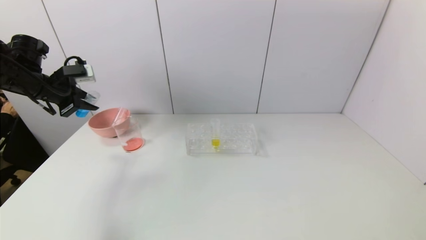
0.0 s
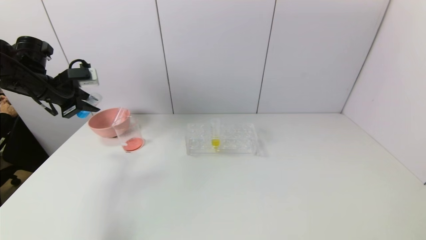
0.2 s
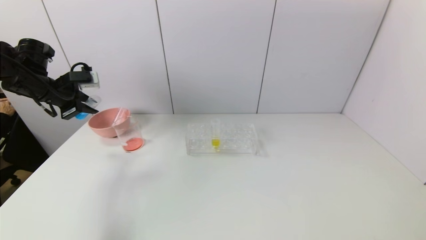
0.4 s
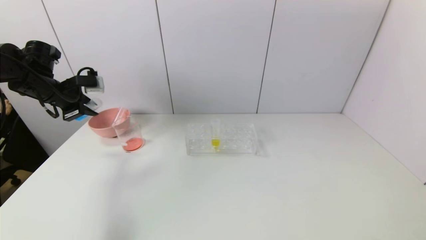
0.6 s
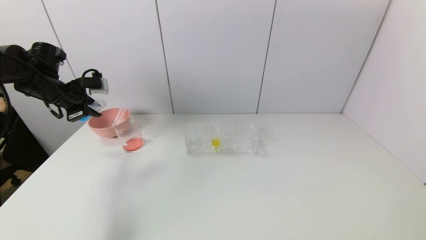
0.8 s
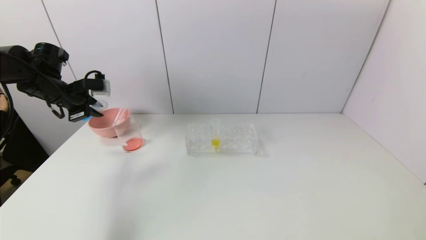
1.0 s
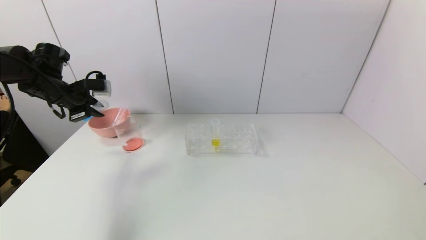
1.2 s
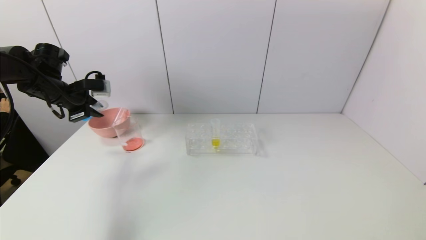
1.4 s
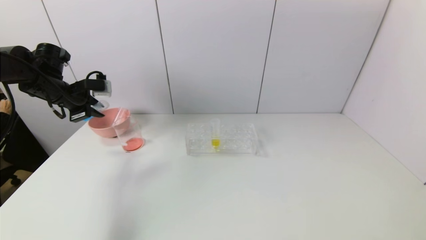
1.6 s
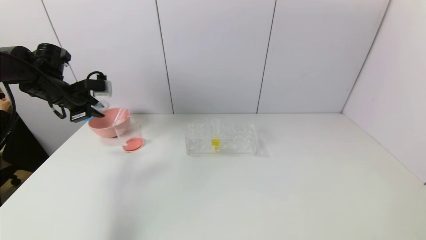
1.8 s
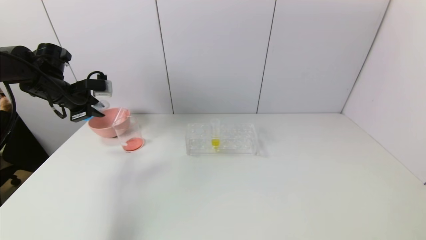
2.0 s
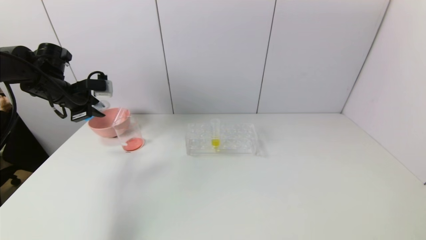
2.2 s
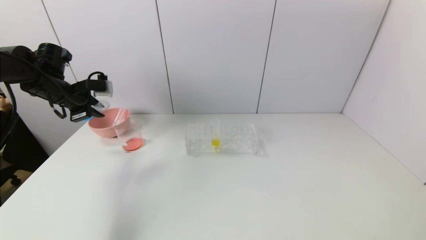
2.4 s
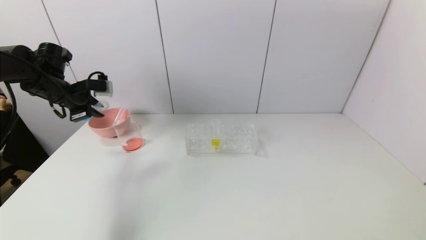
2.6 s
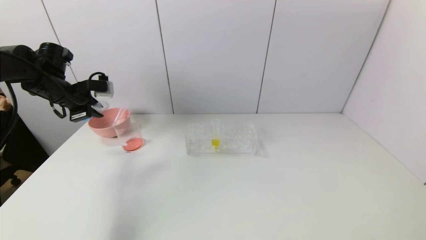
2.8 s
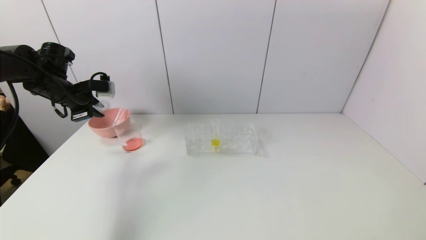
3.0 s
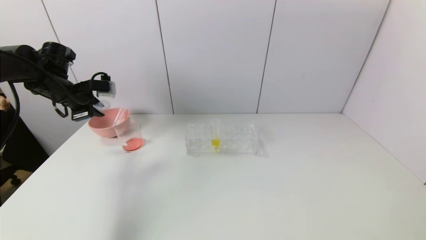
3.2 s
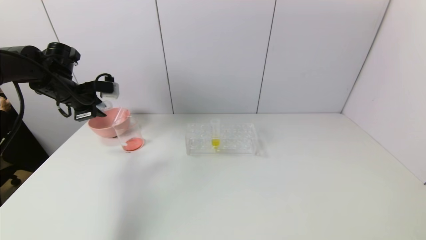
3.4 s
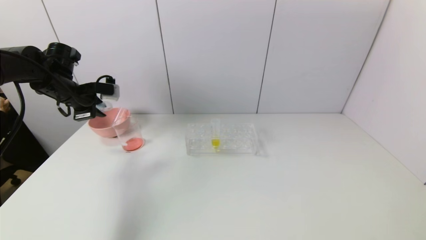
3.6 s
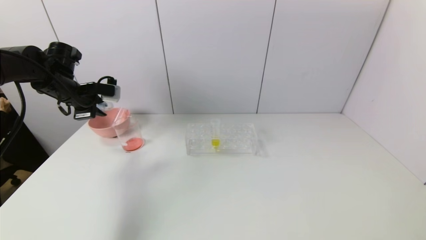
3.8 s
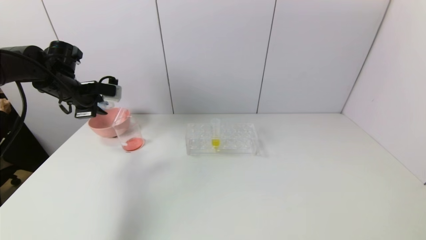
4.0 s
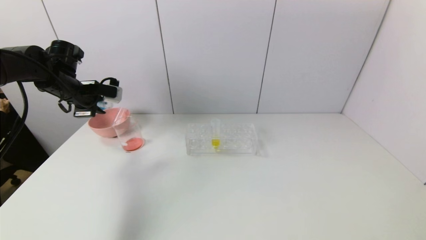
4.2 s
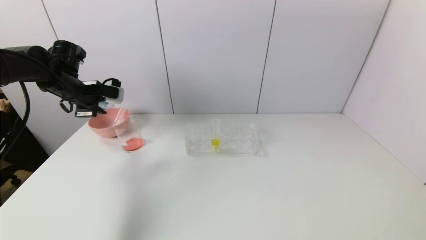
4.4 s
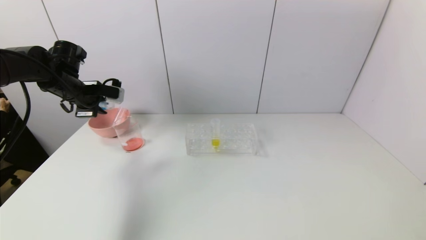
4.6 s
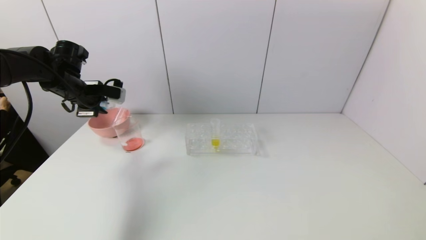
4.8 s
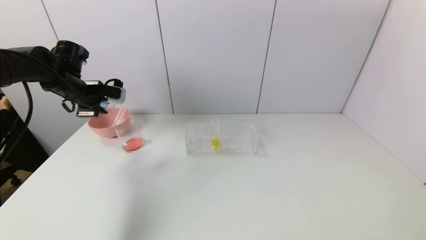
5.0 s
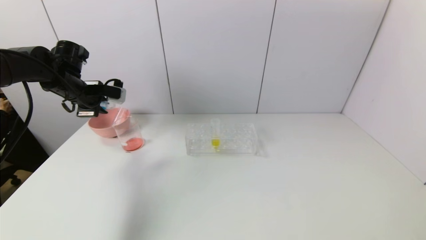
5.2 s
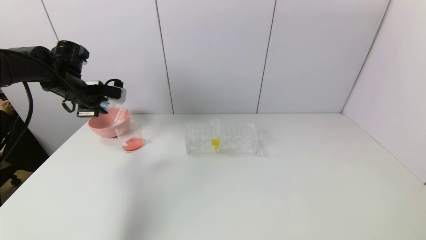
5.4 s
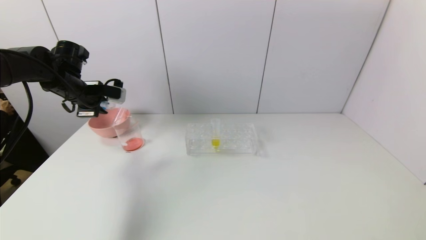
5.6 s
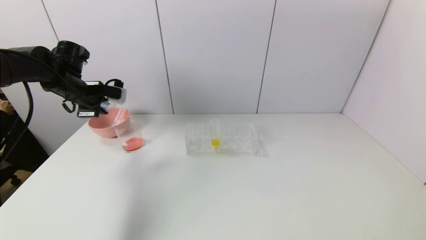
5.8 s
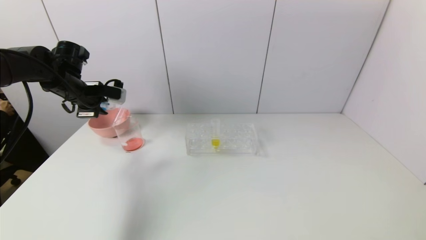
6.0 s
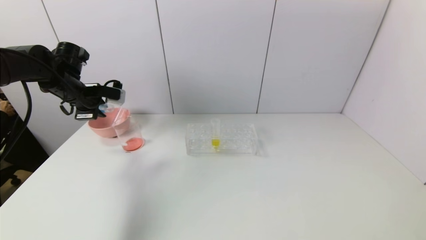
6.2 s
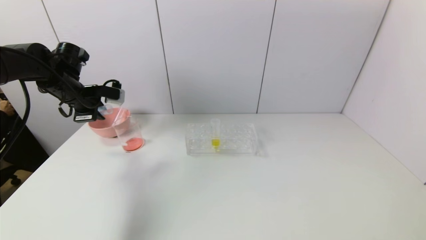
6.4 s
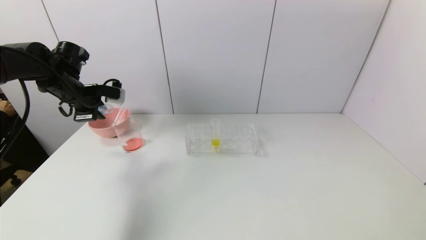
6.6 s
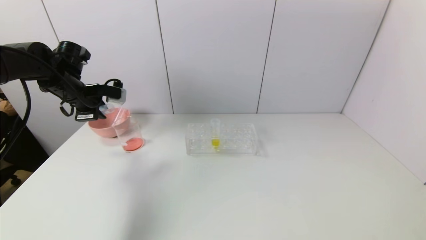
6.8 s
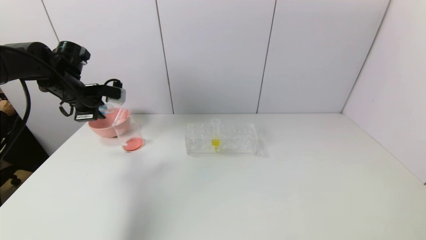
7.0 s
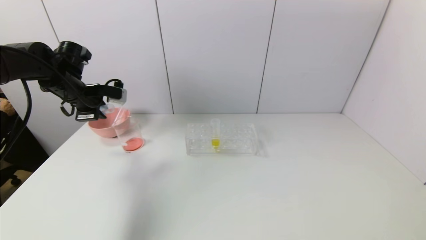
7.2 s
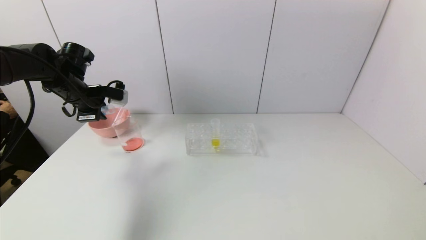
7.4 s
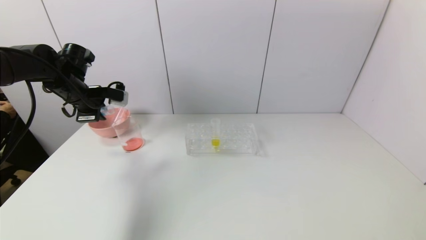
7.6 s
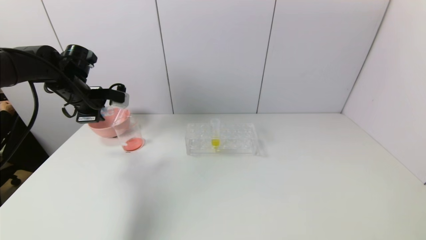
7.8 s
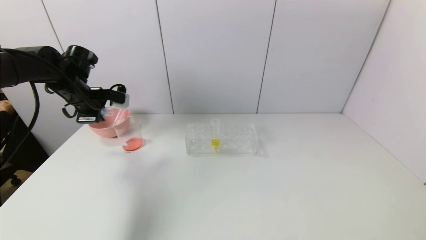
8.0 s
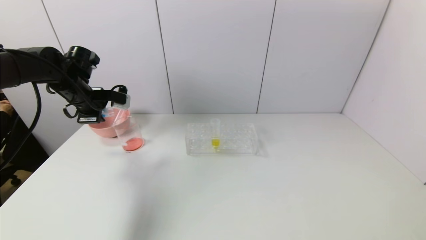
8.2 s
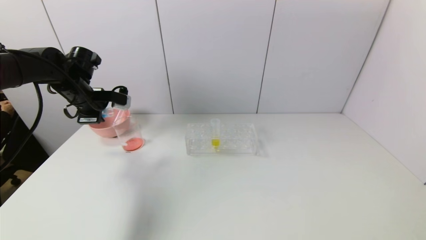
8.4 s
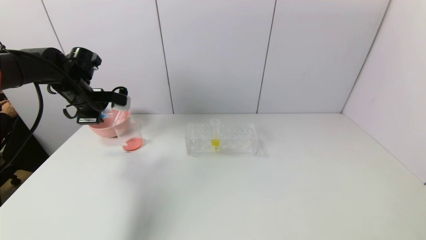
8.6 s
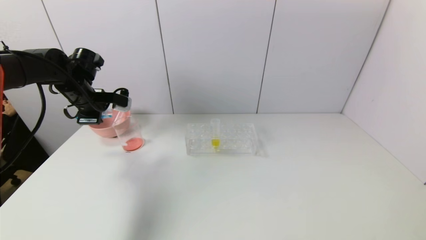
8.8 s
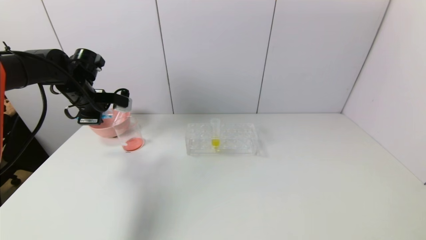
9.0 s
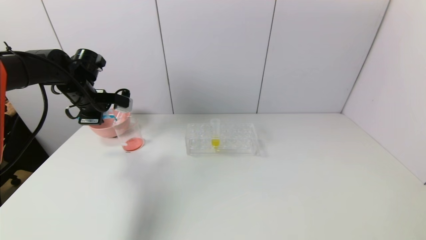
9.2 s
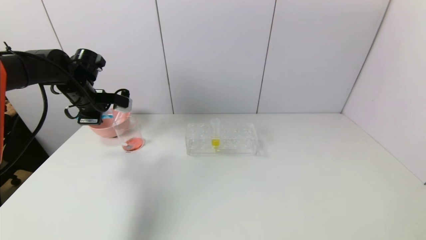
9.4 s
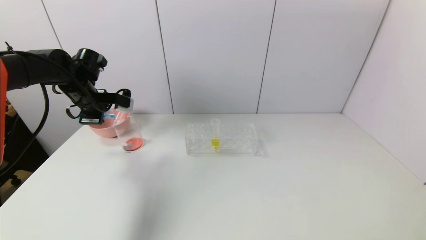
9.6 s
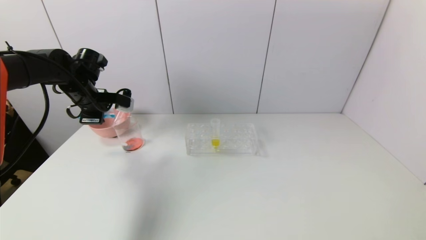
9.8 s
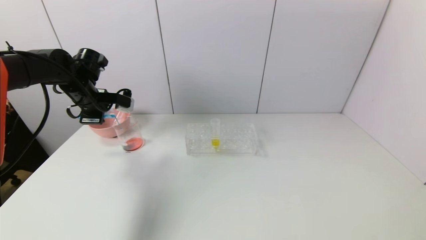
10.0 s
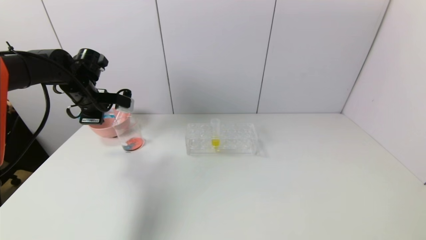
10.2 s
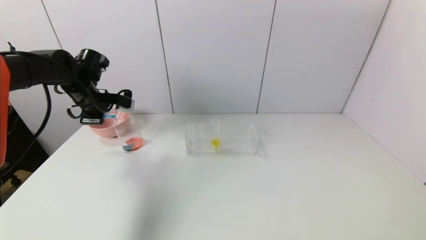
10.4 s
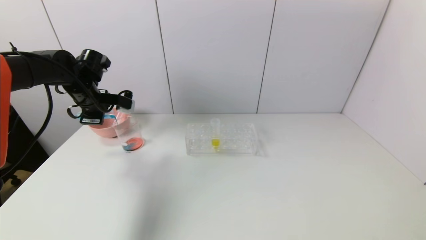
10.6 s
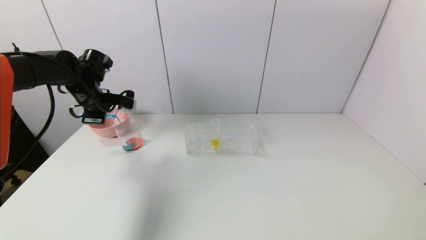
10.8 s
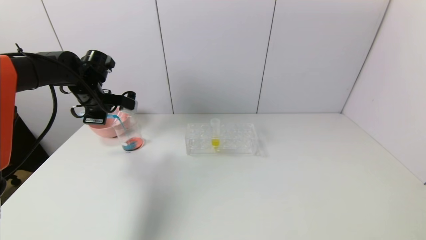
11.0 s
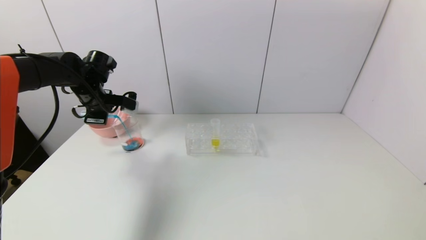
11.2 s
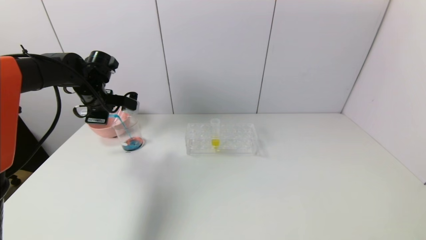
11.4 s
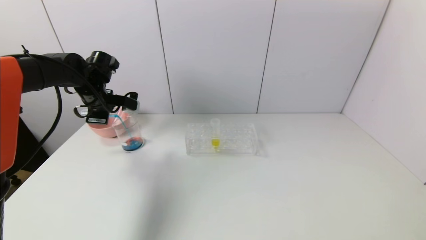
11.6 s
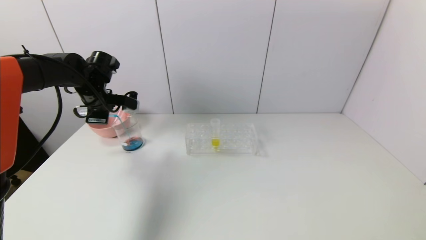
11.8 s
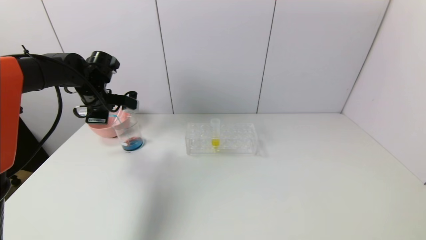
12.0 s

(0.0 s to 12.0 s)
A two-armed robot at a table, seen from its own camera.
Task of the whole recording: pick up the test tube with red pigment and the test tube with blue pigment by grippers and pour them into the container.
0.0 s - 1.6 s: The grippers move only a little.
1.6 s - 3.0 s: Neither gripper changes place.
3.0 s - 4.4 s: The grippers move only a little.
4.4 s - 6.0 s: The two grippers keep their place.
6.0 s - 9.0 s: There are only small adjustments of the grippers.
9.0 s - 10.4 s: The two grippers keep their place.
10.4 s - 12.0 s: The grippers move only a little.

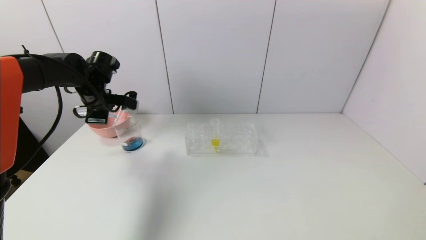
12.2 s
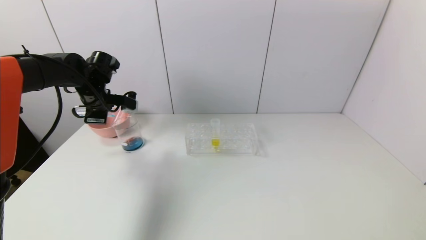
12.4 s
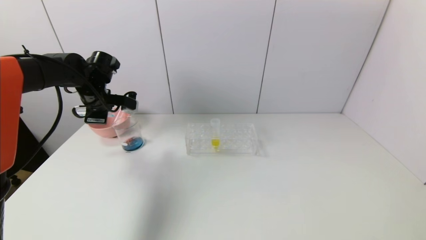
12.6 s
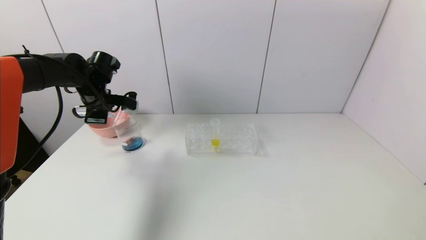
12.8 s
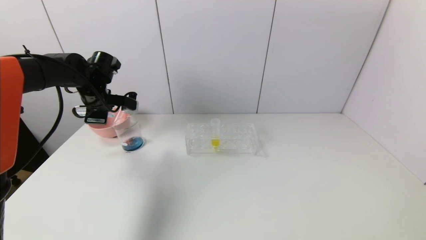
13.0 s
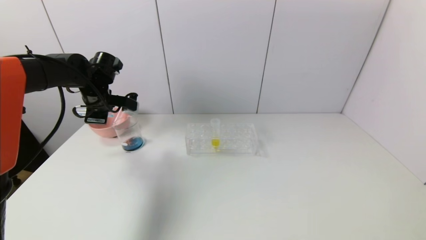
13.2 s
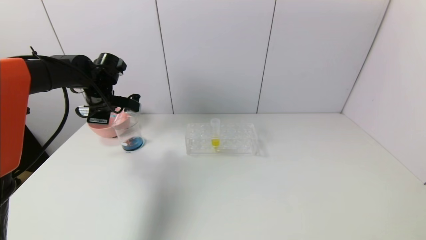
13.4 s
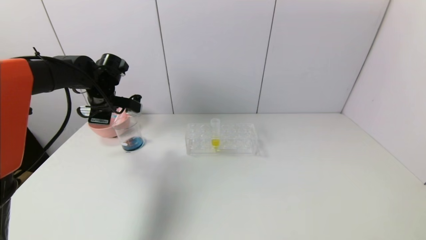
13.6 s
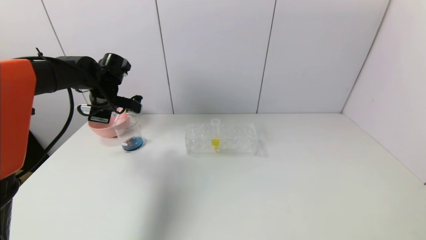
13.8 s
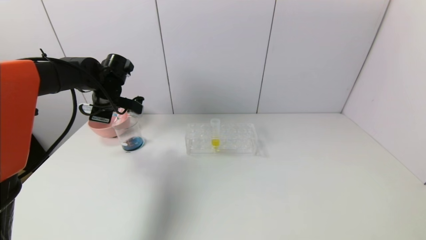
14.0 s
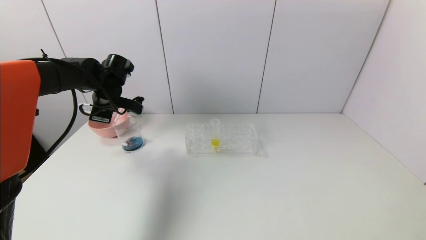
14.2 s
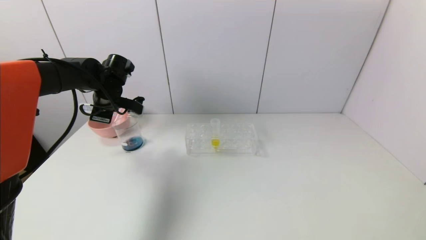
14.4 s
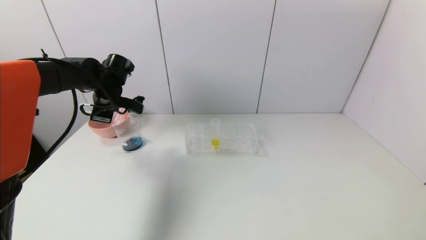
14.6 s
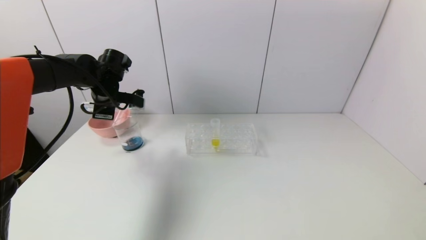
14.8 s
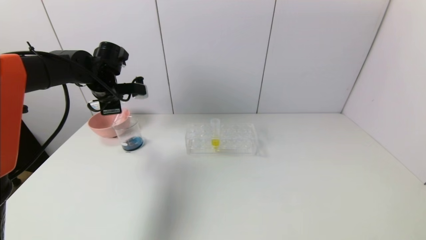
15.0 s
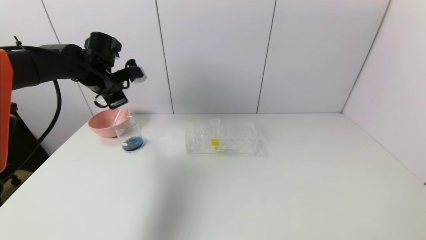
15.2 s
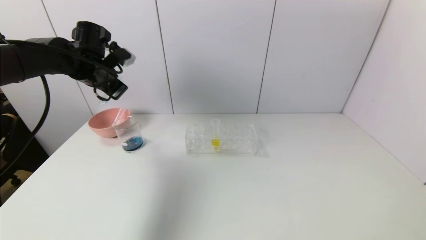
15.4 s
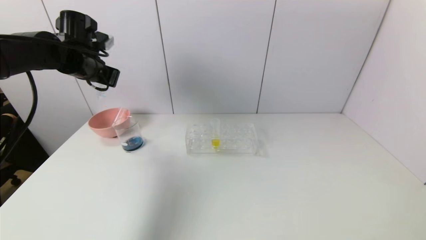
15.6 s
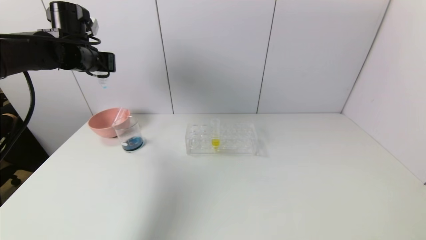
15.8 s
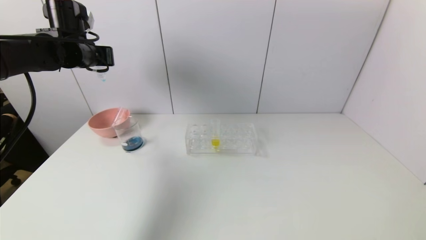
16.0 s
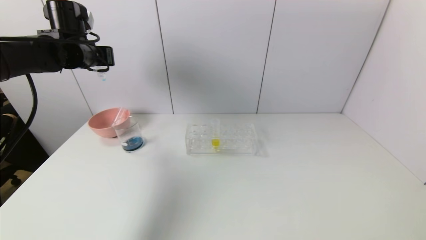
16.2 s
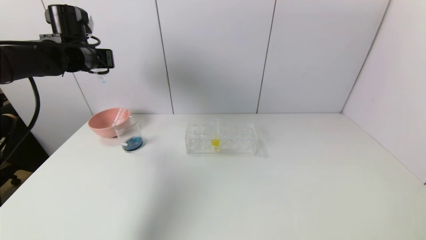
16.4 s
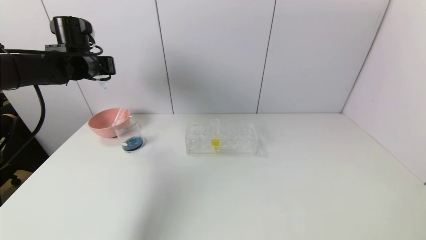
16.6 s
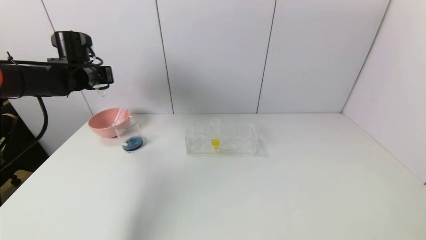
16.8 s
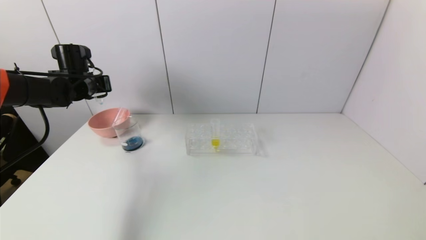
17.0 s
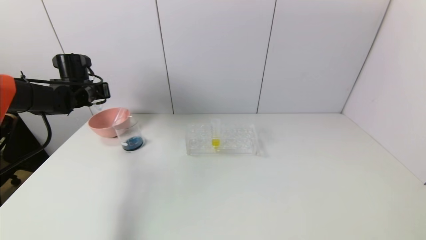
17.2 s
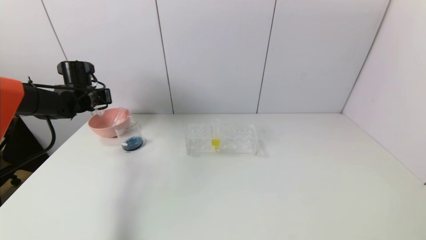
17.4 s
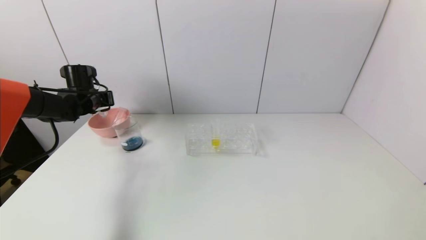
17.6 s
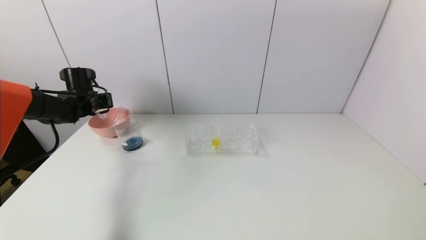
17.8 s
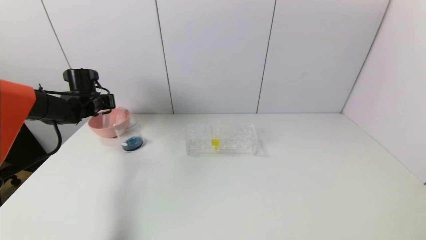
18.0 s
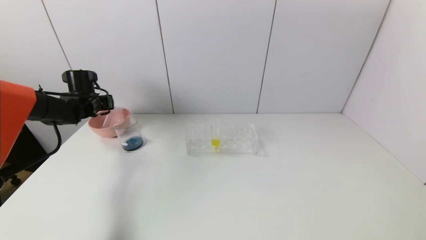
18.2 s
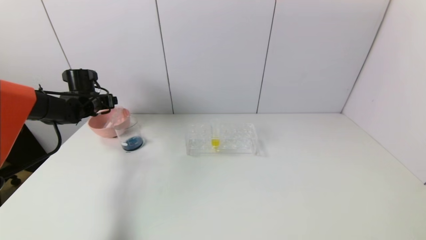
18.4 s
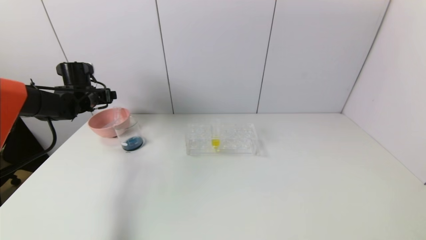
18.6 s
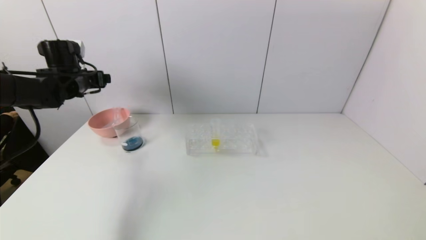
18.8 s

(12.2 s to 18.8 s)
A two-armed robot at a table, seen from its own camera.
Task of the whole recording: pick up the test tube with red pigment and the test tube with blue pigment by grippers and pour them into the container.
Step, 12.2 s - 14.2 s: Pour the blue reagent into the graduated cylinder with the left gripper.
Step, 14.4 s - 18.6 s: Place the test tube into the bowl with the left gripper.
12.2 s - 13.8 s: The grippers move only a little.
13.8 s - 15.4 s: The left gripper travels upward by approximately 5 cm.
15.4 s - 17.2 s: The left gripper shifts approximately 10 cm downward and to the left.
17.2 s - 18.8 s: The left gripper shifts roughly 5 cm upward, and opens.
